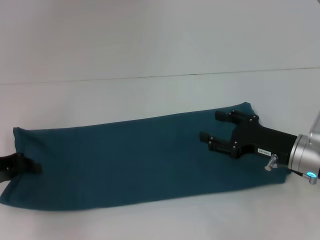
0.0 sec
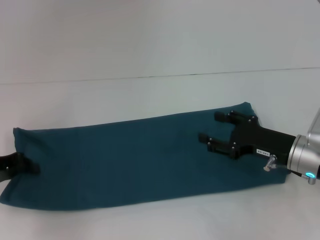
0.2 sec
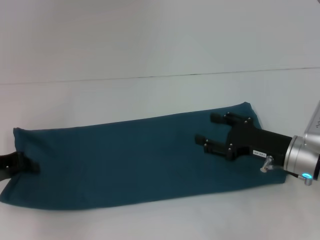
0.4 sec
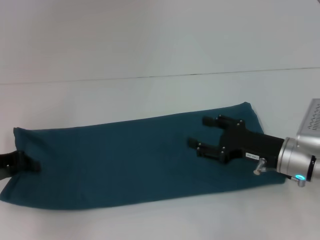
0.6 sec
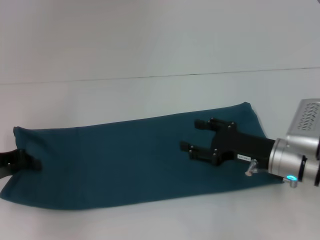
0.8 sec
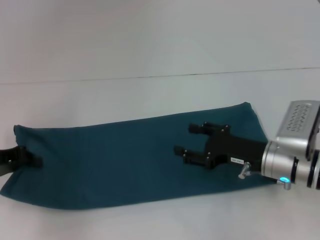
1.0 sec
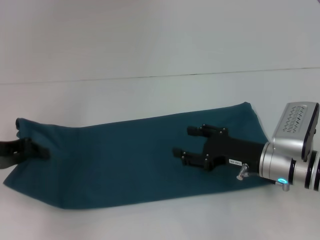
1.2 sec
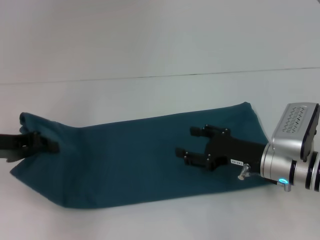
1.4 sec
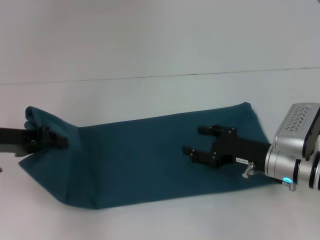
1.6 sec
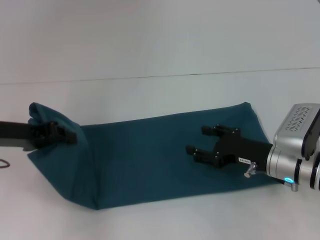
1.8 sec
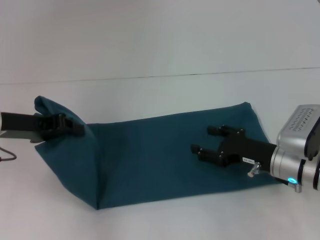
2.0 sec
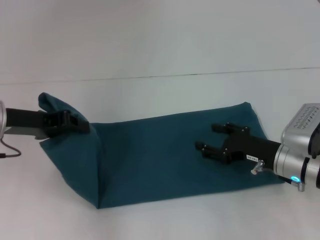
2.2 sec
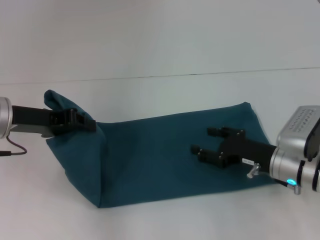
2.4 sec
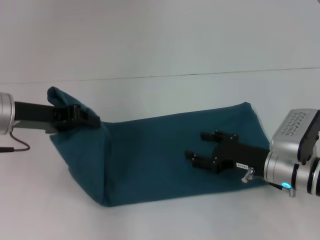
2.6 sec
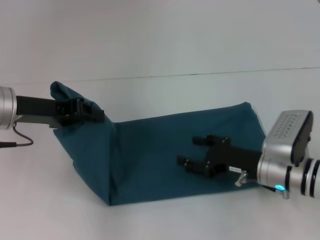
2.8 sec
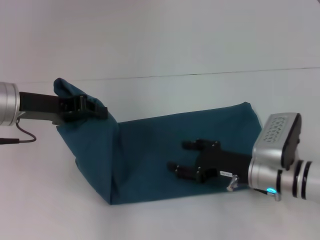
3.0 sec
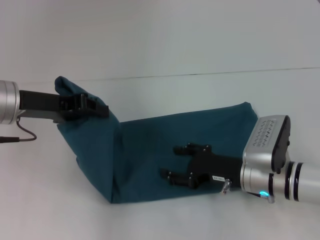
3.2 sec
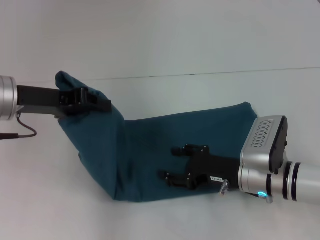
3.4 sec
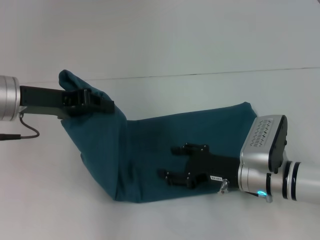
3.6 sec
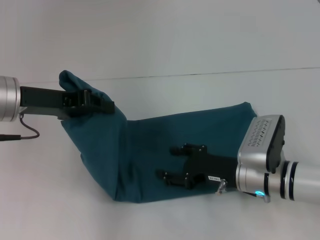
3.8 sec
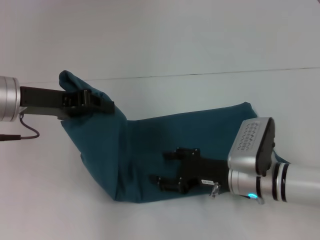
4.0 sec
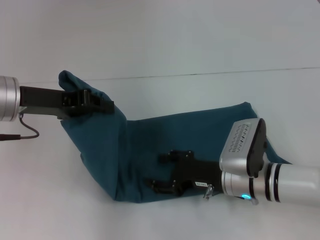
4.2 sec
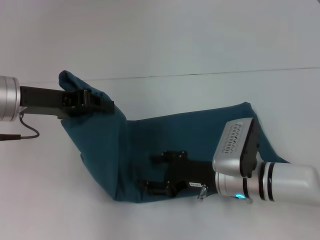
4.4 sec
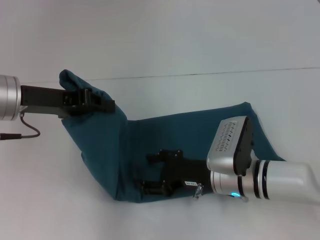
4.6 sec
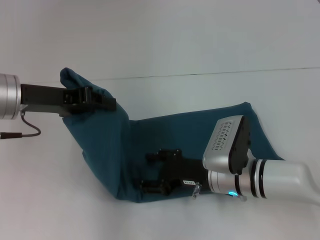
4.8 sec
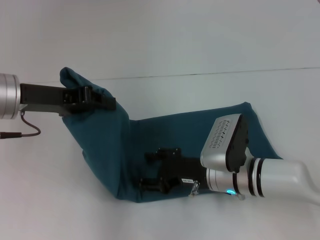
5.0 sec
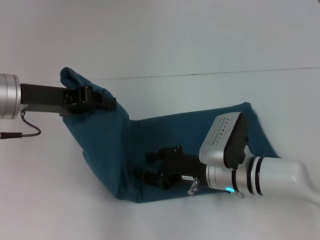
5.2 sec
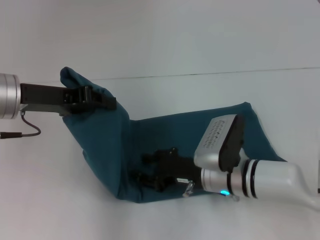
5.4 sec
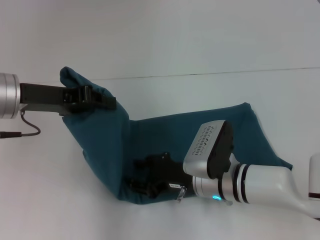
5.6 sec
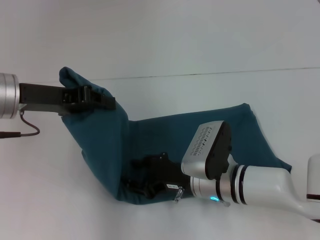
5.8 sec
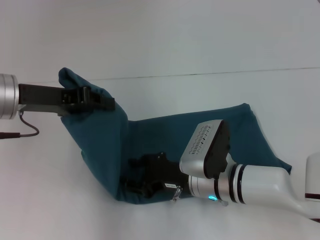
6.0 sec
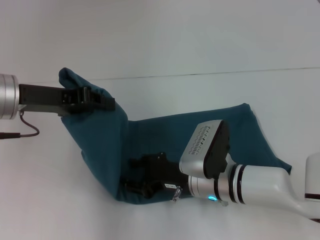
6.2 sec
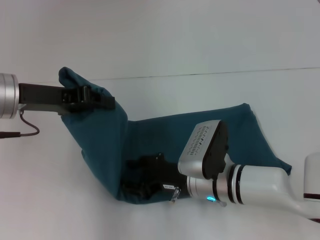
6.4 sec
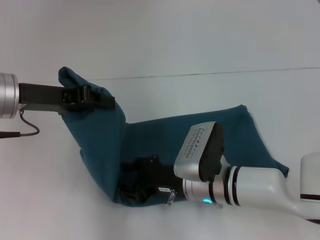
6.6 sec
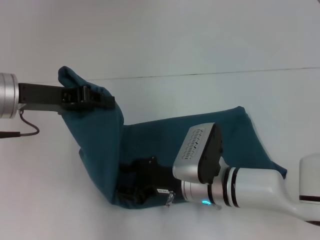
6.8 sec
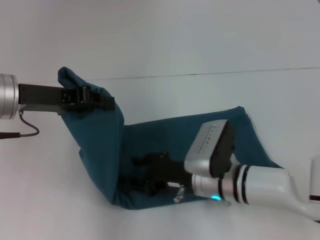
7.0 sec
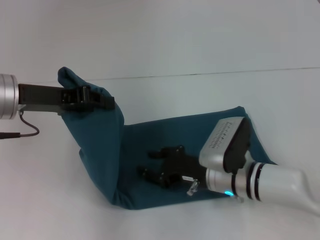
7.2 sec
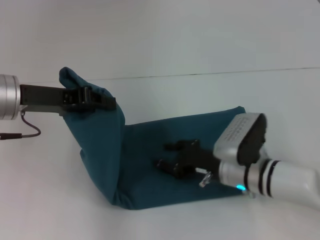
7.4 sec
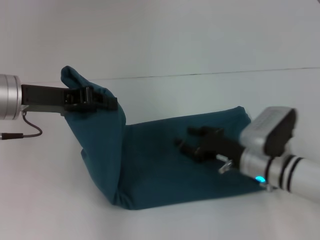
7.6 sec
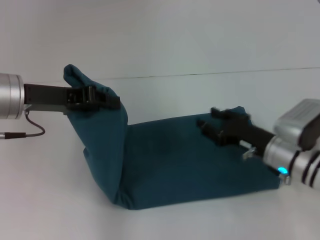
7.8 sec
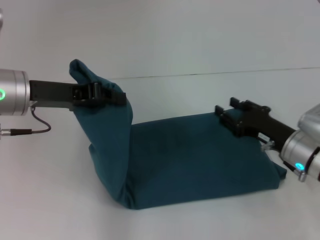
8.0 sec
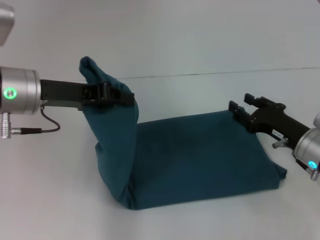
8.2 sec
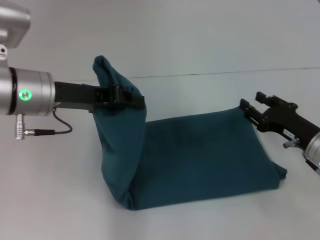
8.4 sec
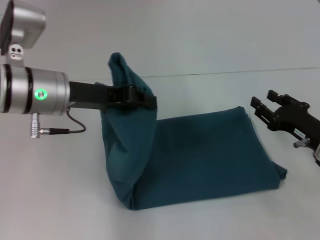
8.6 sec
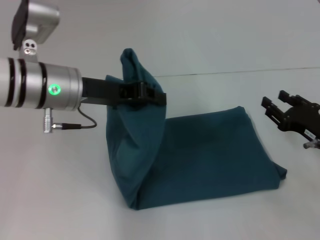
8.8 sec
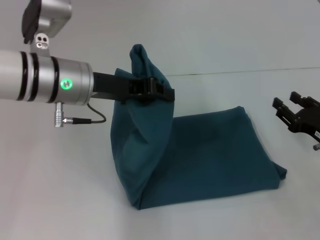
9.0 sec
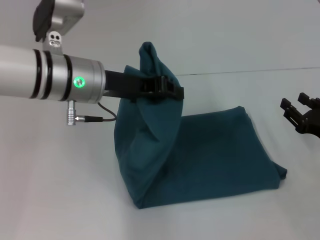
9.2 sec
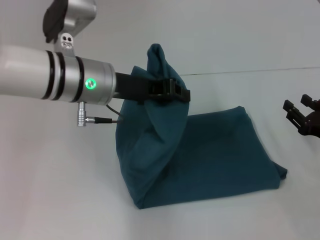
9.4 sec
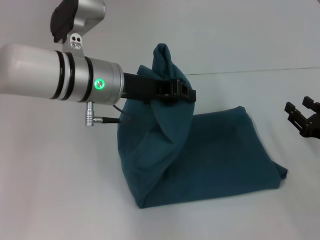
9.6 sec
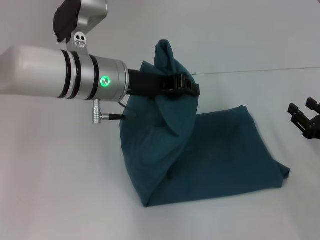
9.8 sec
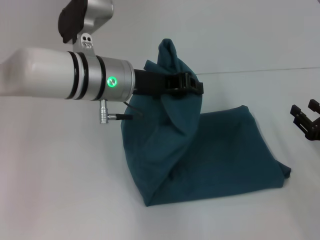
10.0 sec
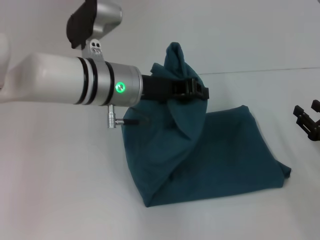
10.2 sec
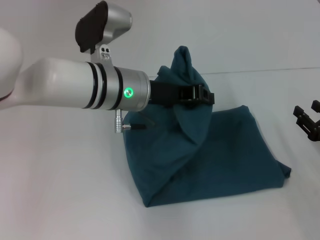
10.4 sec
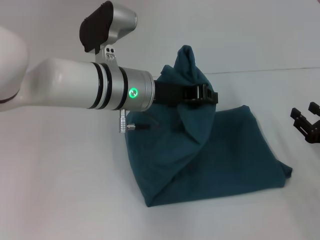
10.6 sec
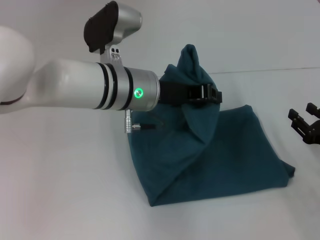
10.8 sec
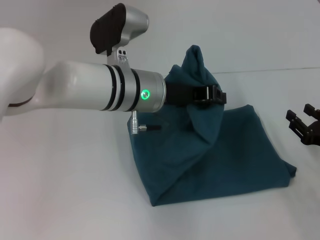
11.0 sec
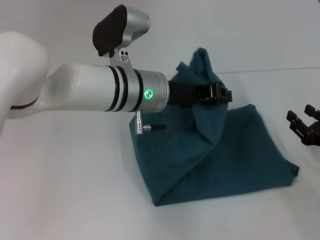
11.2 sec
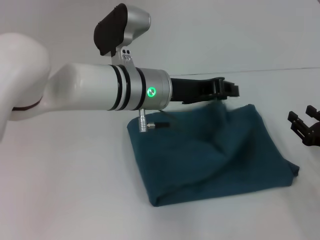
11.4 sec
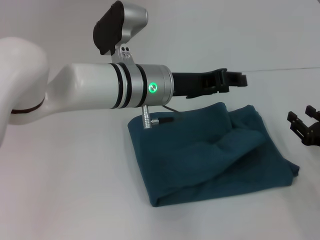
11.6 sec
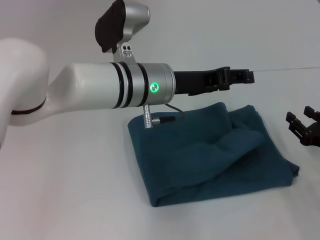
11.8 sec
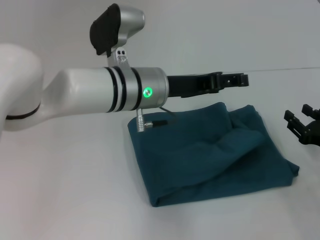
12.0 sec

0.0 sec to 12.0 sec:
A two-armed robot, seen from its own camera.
Step, 0.0 sec to 11.4 sec: Fold the clothes to the left.
0.0 sec to 1.6 sec: The left gripper changes place by approximately 5 cm, and closes.
1.6 sec to 3.0 sec: The left gripper moves to the right, some 5 cm.
3.0 sec to 4.4 sec: The right gripper goes approximately 5 cm to the left.
4.4 sec to 6.0 sec: The grippers make only small movements.
6.0 sec to 7.6 sec: The right gripper travels to the right by roughly 10 cm.
7.6 sec to 9.0 sec: The right gripper shifts some 15 cm to the right; the left gripper is displaced to the right by about 10 cm.
9.0 sec to 10.4 sec: The left gripper goes approximately 5 cm to the right.
10.4 sec to 12.0 sec: The left gripper opens up.

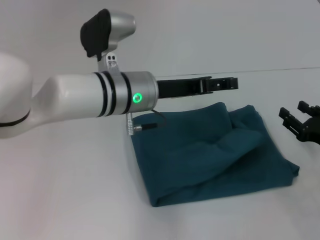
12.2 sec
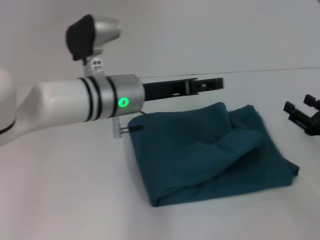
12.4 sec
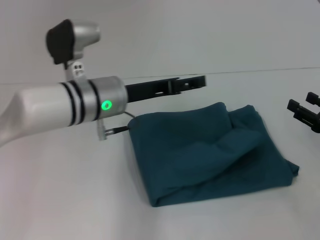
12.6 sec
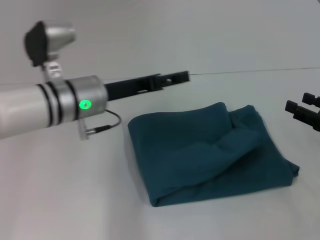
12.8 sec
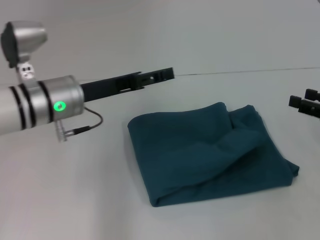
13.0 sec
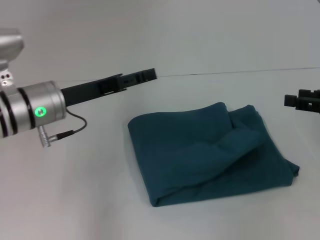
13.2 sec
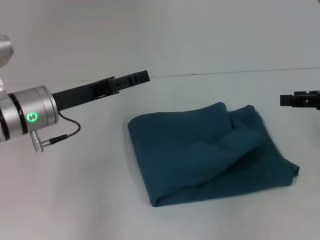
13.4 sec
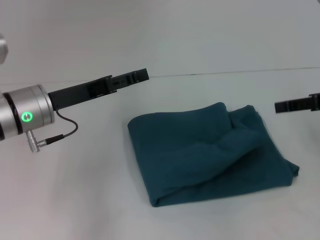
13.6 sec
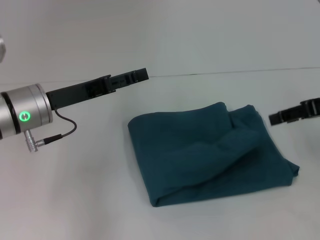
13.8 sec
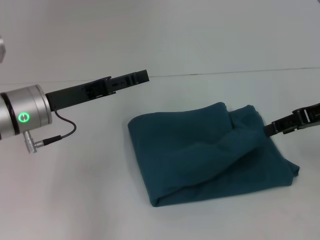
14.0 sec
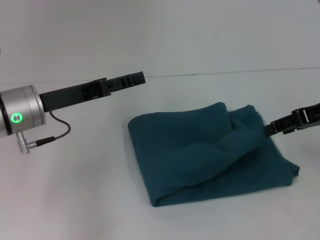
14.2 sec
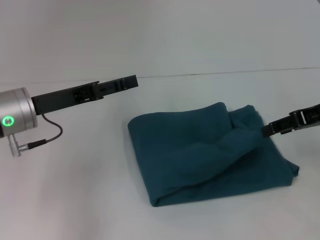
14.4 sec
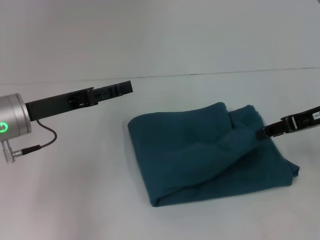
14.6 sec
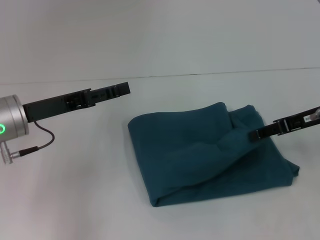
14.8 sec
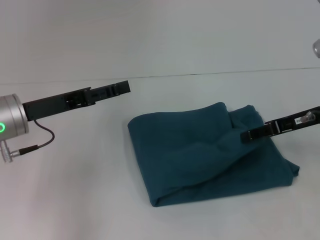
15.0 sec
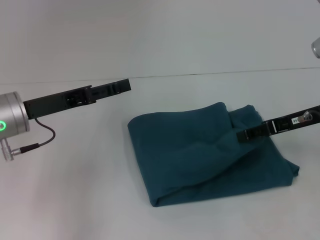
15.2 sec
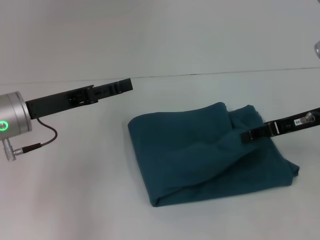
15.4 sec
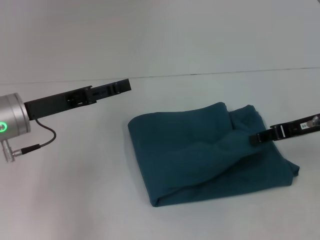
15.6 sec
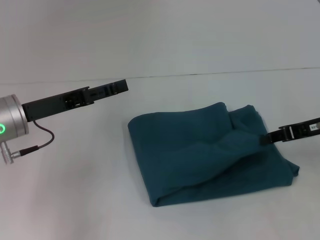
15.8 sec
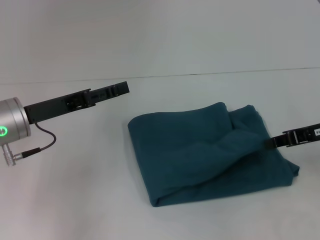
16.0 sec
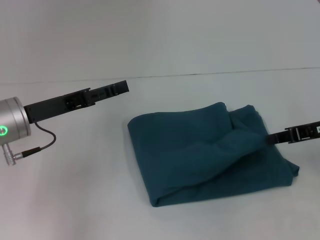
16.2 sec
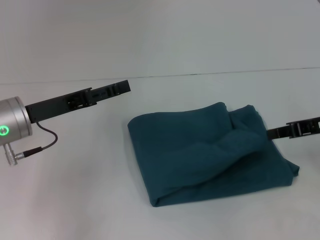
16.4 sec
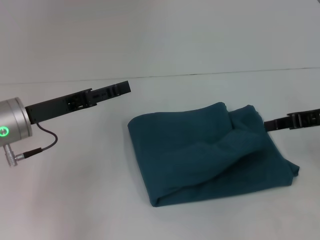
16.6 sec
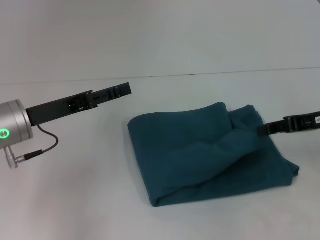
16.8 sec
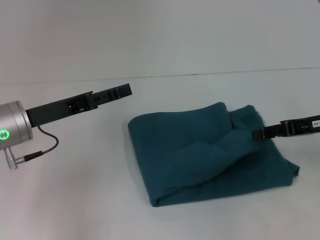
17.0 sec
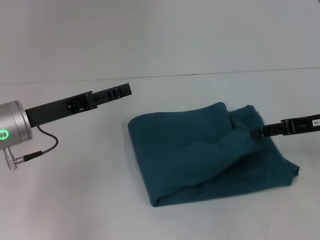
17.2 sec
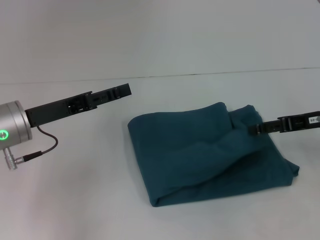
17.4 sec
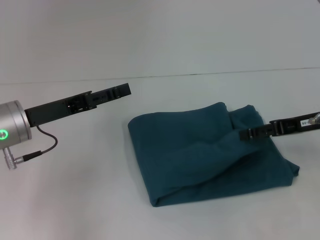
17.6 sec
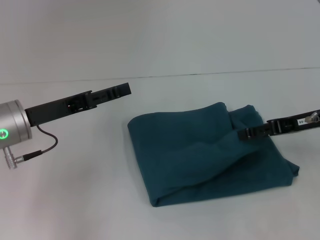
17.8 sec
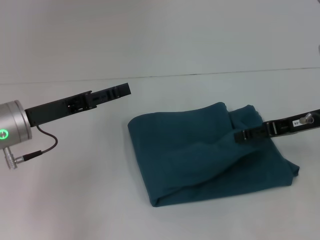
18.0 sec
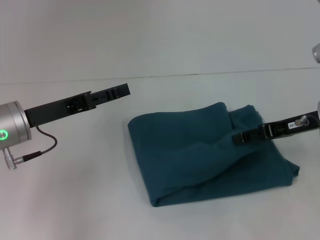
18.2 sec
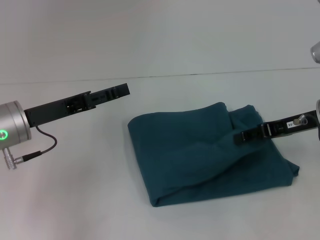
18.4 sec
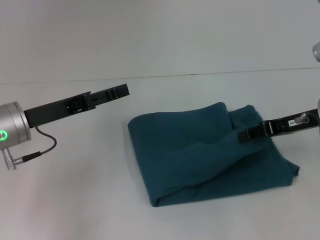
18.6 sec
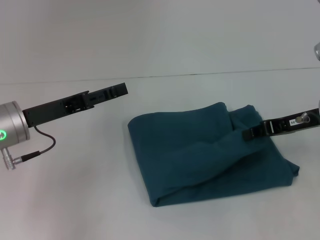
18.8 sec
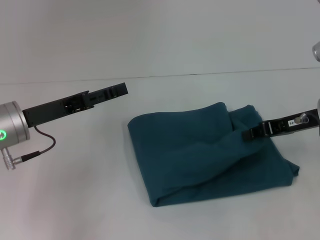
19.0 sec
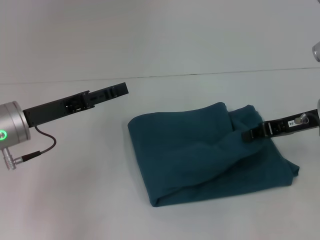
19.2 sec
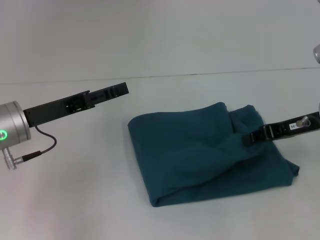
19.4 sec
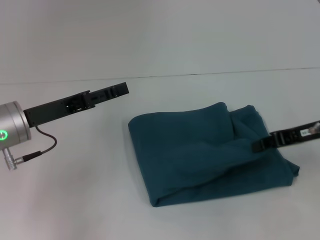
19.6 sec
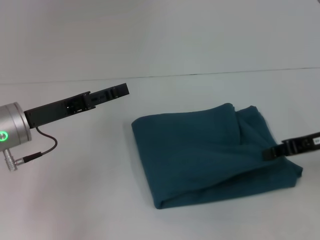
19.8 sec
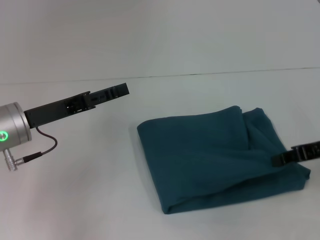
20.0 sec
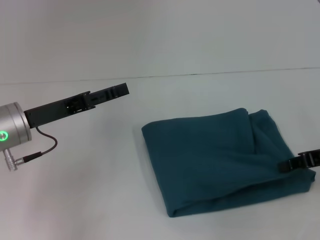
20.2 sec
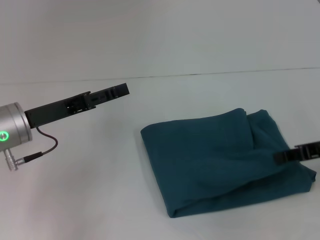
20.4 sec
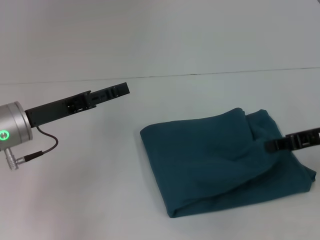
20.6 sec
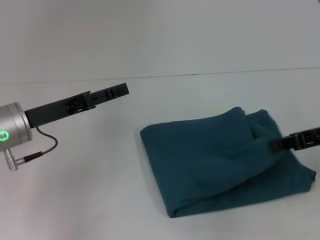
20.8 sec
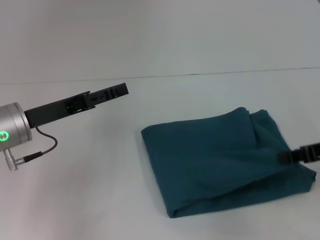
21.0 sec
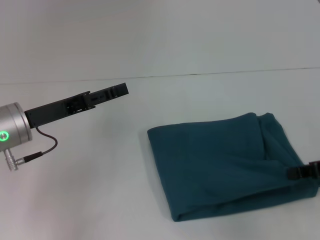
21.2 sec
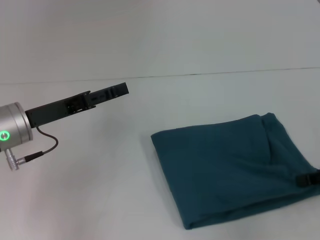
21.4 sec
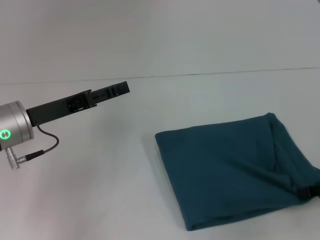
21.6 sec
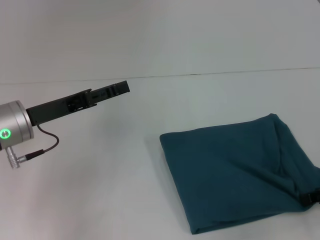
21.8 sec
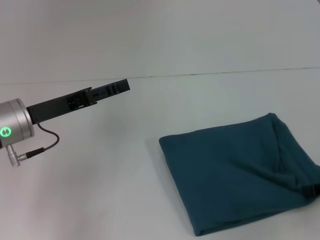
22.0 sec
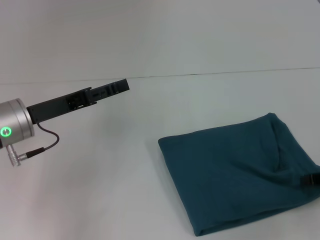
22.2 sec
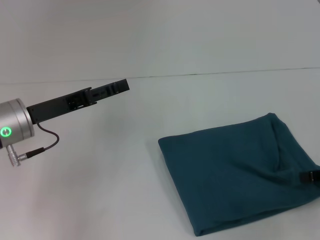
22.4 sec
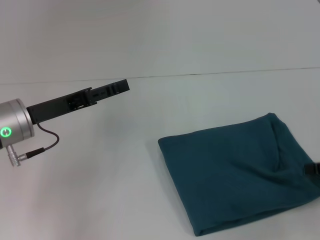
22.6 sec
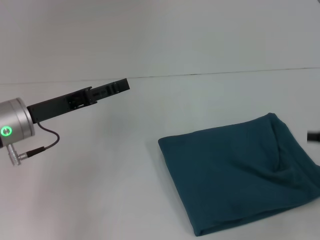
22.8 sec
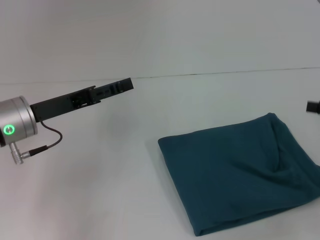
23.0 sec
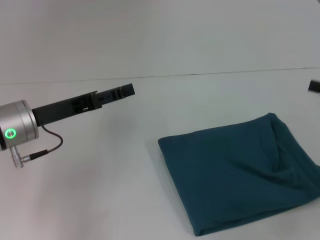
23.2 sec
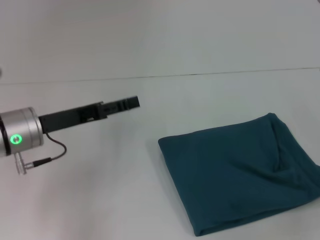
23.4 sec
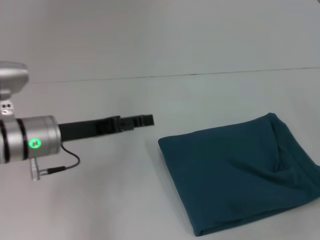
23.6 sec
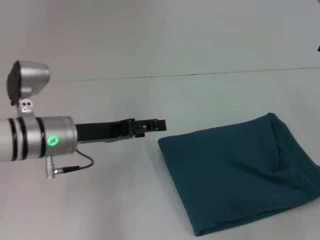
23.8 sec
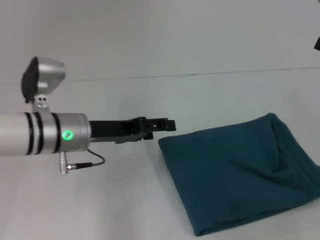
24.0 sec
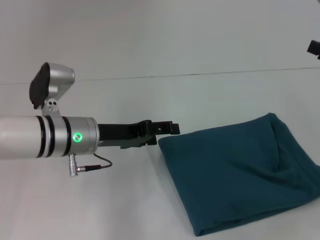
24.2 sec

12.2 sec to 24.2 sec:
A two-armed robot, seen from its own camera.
12.2 sec to 13.8 sec: The right gripper goes approximately 15 cm upward; the left gripper goes some 15 cm to the left.
13.8 sec to 15.2 sec: The right gripper heads downward, covering roughly 5 cm.
15.2 sec to 16.6 sec: The right gripper closes.
16.6 sec to 18.2 sec: The right gripper opens its fingers.
18.2 sec to 19.8 sec: The right gripper closes its fingers.
19.8 sec to 21.2 sec: The right gripper changes place by about 5 cm.
21.2 sec to 22.6 sec: The grippers make only small movements.
22.6 sec to 24.2 sec: The left gripper goes approximately 10 cm to the right, while the right gripper moves about 5 cm, and opens up.
